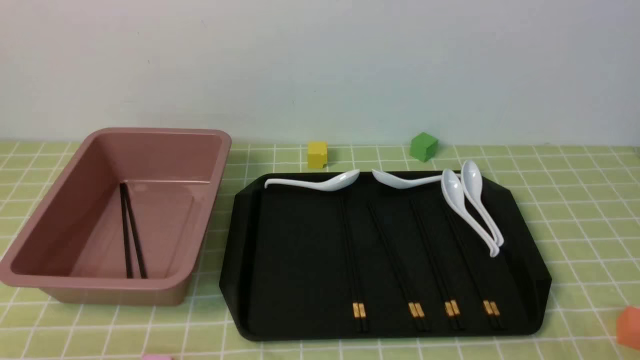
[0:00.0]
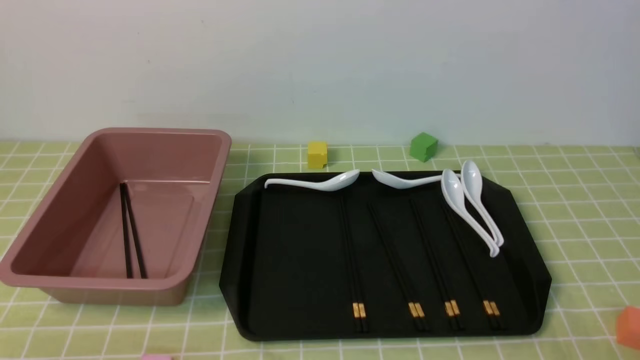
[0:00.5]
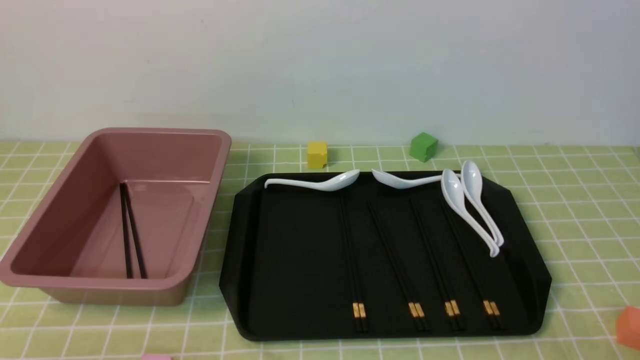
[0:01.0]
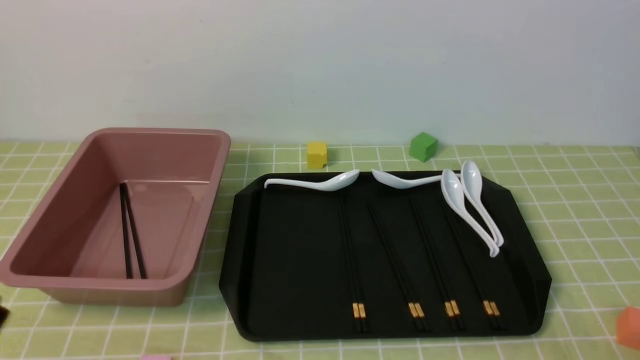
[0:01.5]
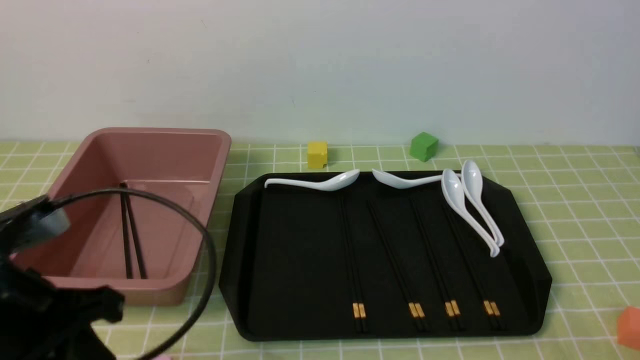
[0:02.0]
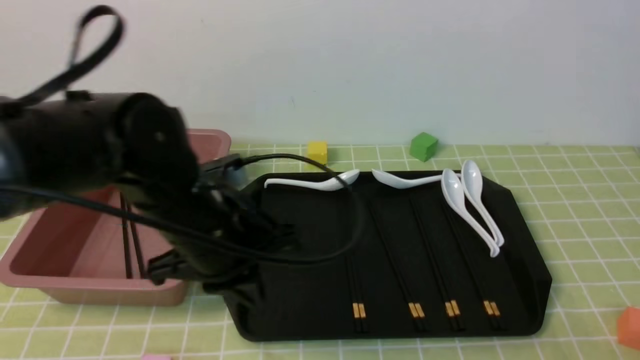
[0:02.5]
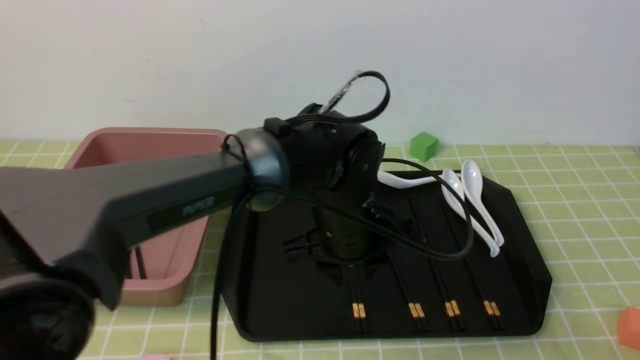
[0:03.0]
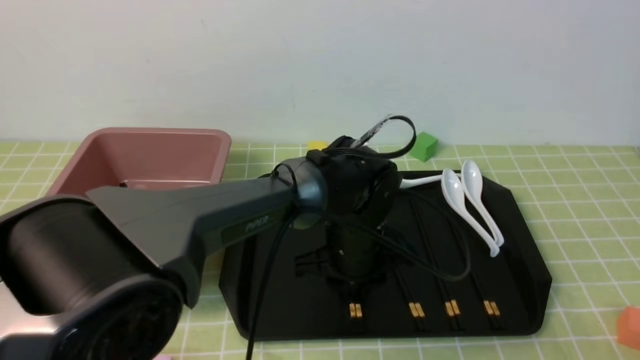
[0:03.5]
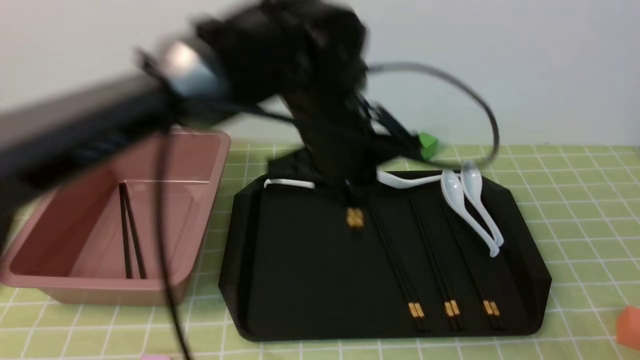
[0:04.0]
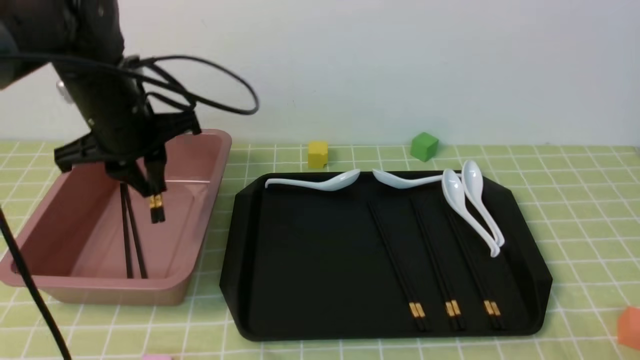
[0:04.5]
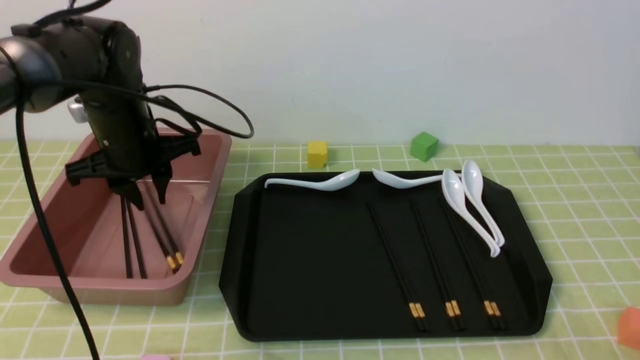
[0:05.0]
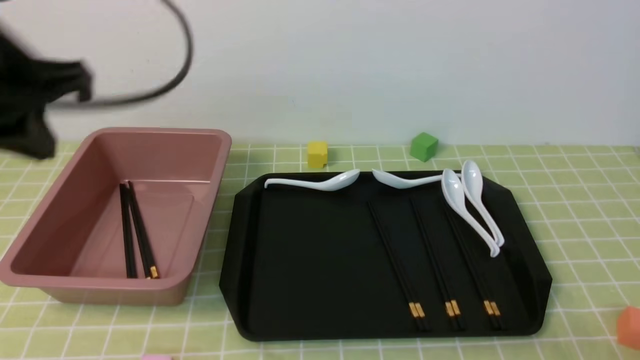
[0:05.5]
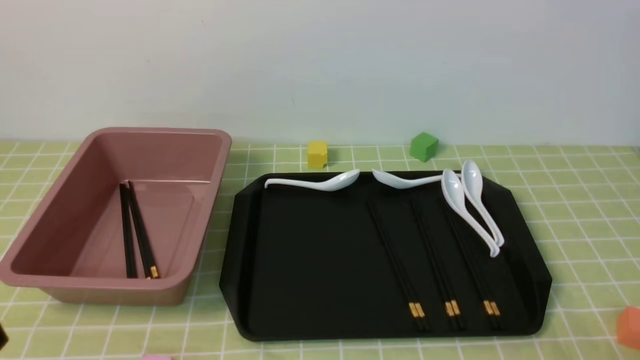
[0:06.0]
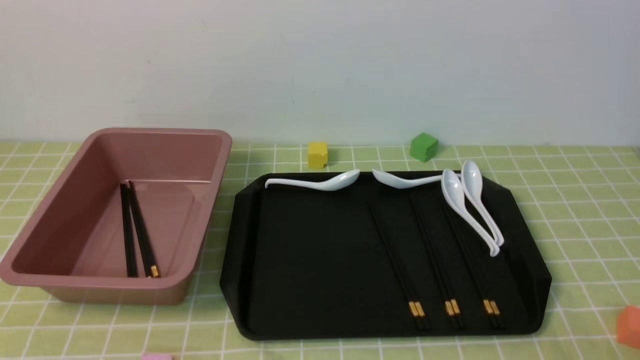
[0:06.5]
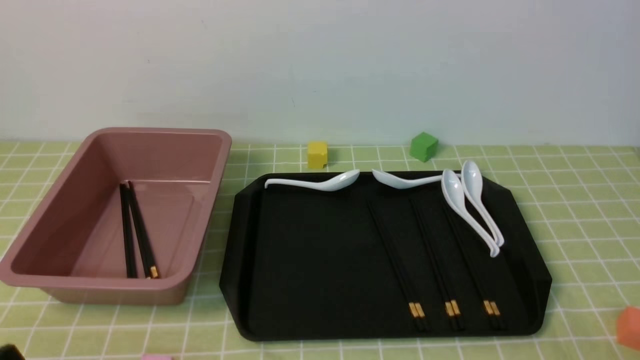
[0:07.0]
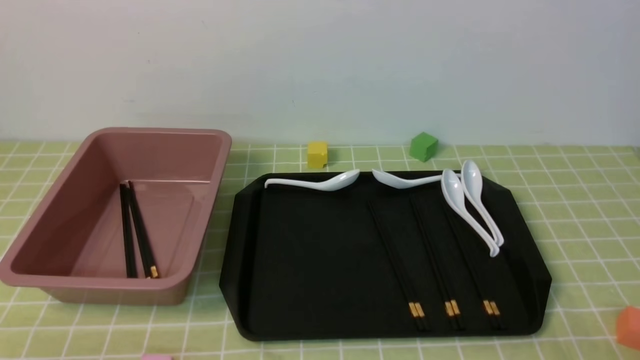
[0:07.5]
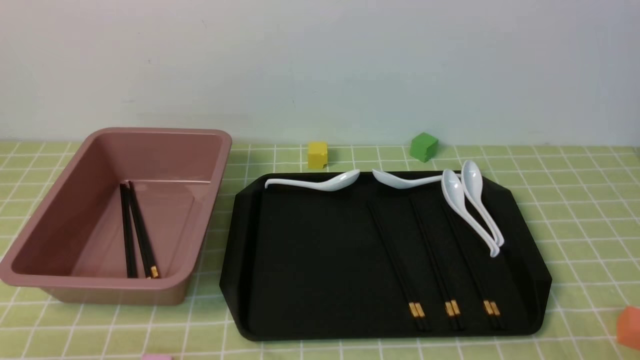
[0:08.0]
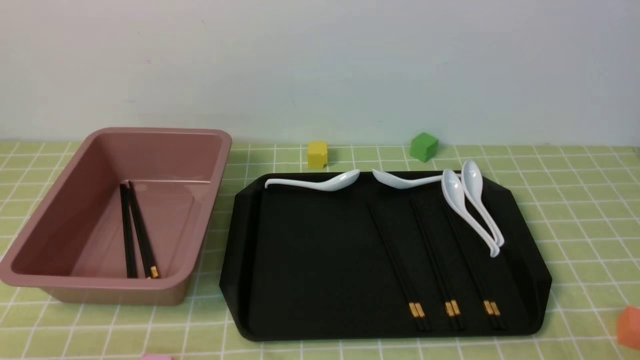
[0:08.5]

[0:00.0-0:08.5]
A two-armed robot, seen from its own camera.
Step, 0:00.0 to 0:03.5: use the left arm to grab a pair of chopsticks.
Step, 0:04.5 to 0:05.0: use the left arm to put the chopsticks into the lunch box.
0:00.0 to 0:02.0: The left gripper goes approximately 15 cm upward and forward, and closes its fingers.
0:02.0 to 0:04.0: The left gripper is displaced to the right and forward by approximately 25 cm, and opens.
0:04.0 to 0:06.5: The left gripper heads backward and to the left, covering about 40 cm, and closes.
